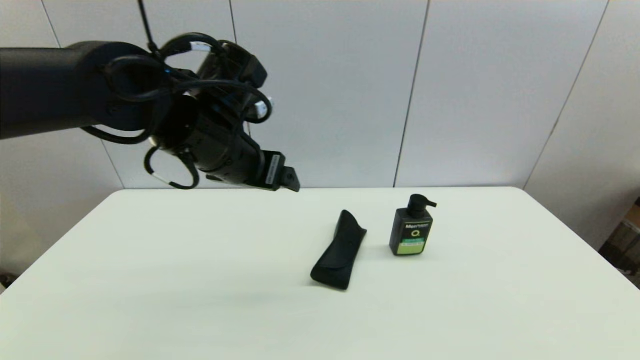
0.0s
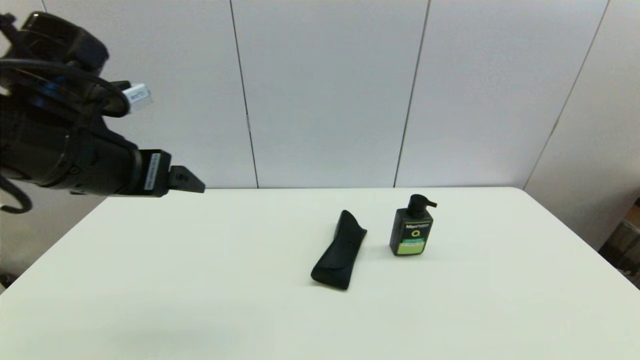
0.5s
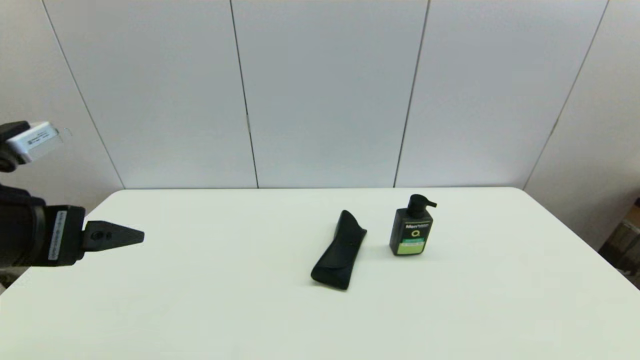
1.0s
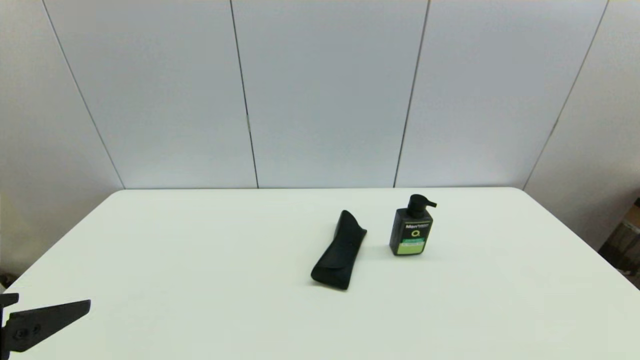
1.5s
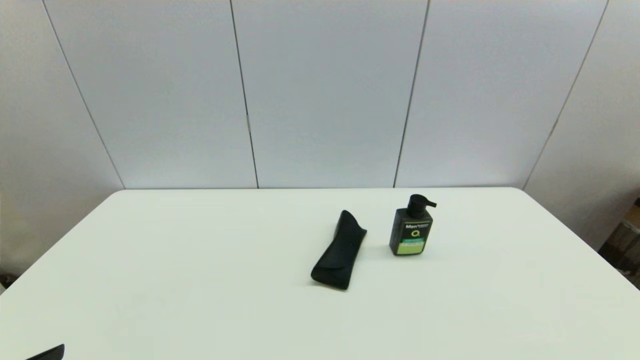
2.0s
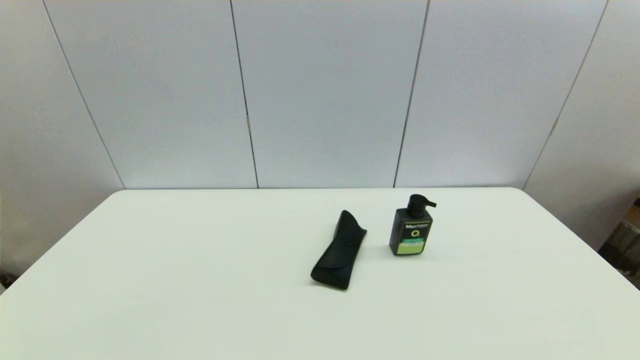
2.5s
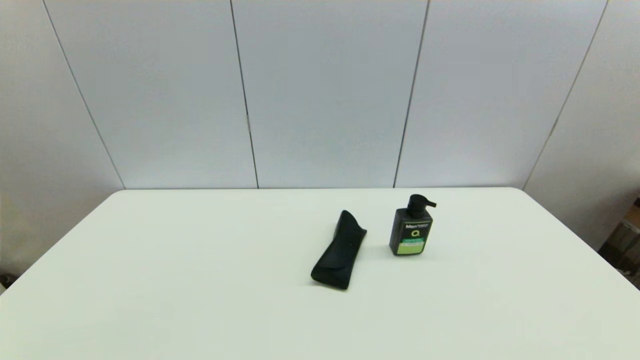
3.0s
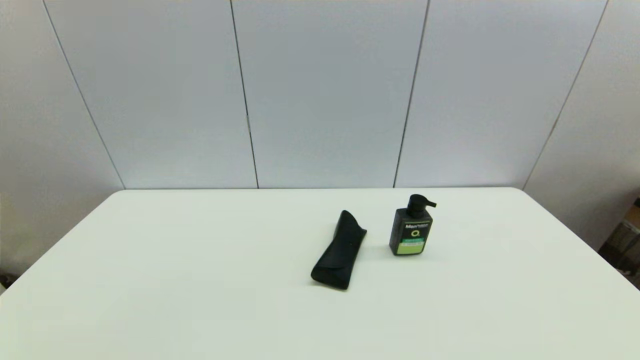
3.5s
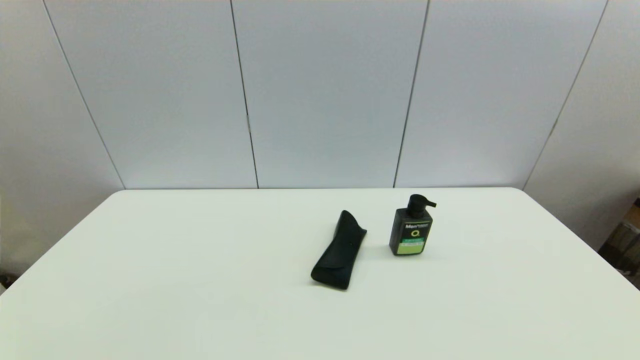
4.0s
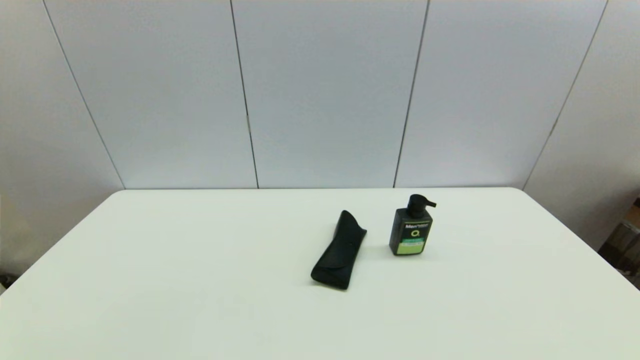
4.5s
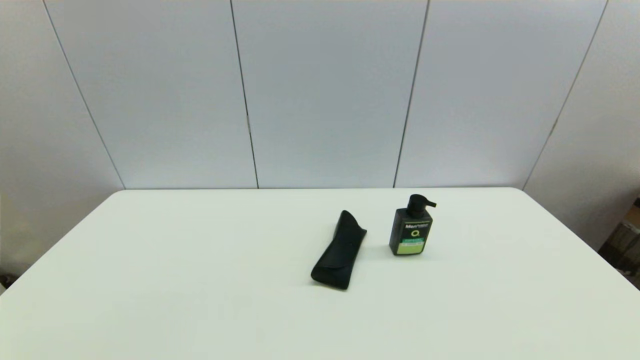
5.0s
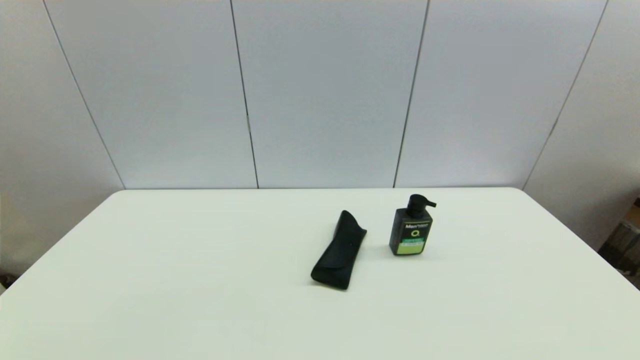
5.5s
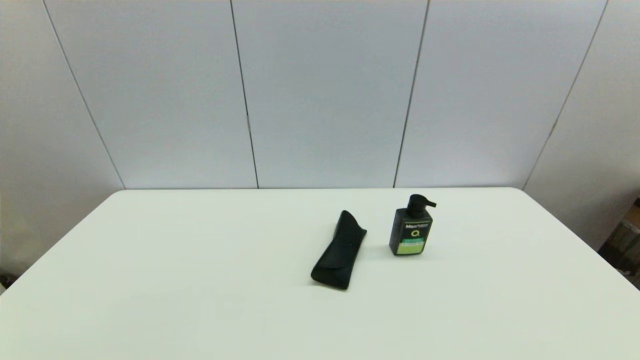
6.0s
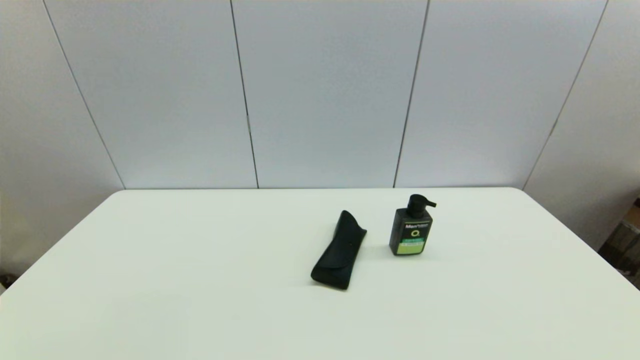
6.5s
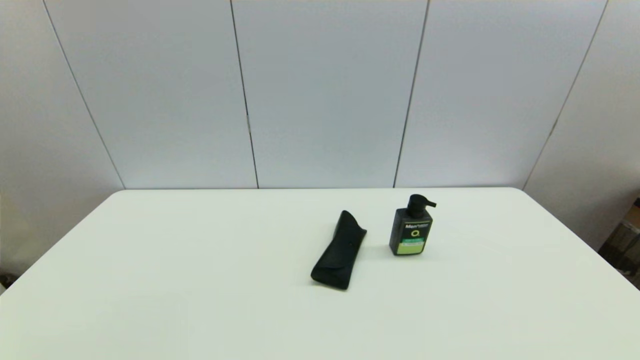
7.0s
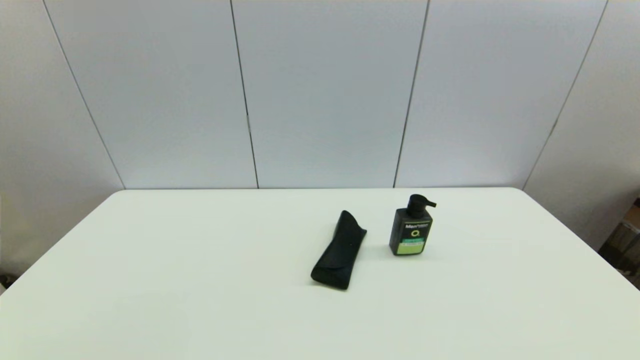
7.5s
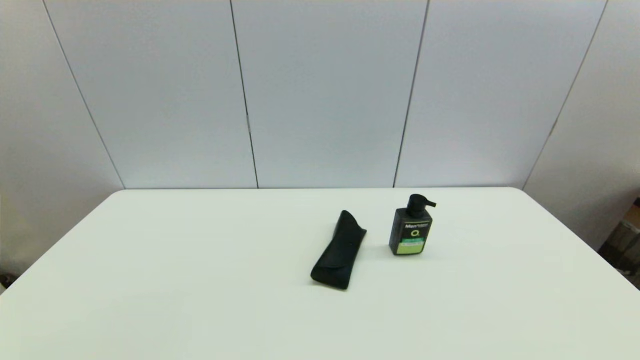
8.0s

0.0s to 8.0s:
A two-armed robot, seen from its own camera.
0.0s to 2.0s: The left gripper moves backward and to the left, some 30 cm.
6.0s to 8.0s: Both grippers stay about where they are.
